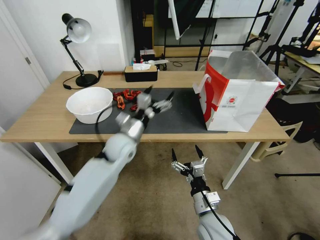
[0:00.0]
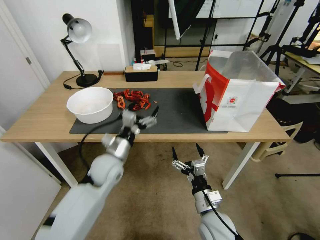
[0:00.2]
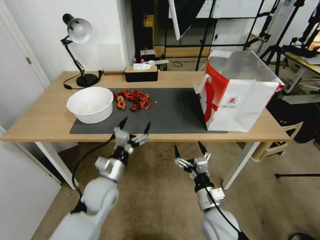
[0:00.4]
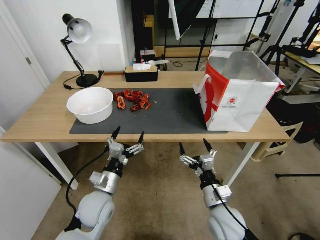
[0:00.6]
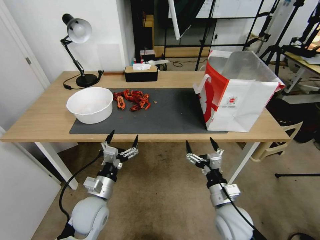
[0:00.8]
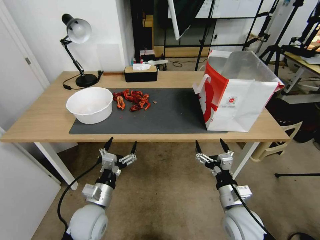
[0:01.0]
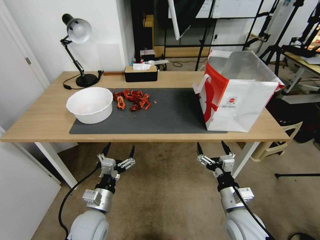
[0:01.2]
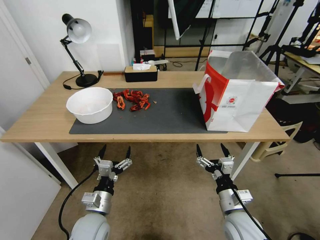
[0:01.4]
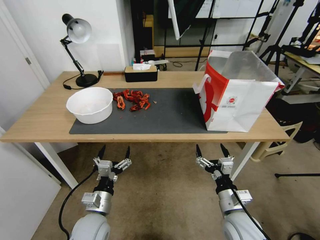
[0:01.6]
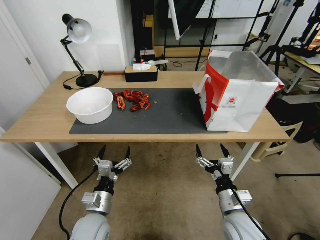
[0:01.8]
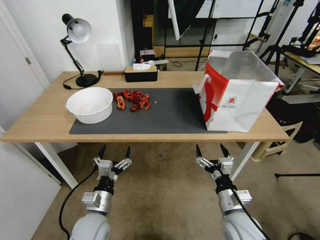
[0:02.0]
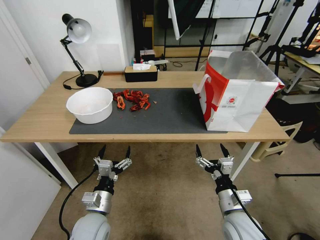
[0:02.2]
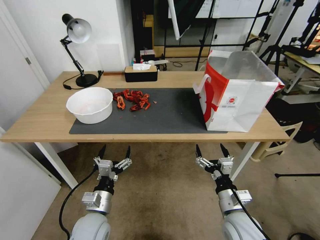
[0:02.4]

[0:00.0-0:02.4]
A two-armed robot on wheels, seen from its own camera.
Task of the whole recording: Close the takeout container lid, then place the container into the takeout bag.
0.0 to 1.2 s: The right gripper goes some 10 cm to the right. Meanwhile the left gripper shifts about 25 cm backward and downward.
1.2 to 2.4 s: The grippers move only a little.

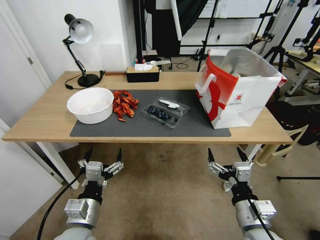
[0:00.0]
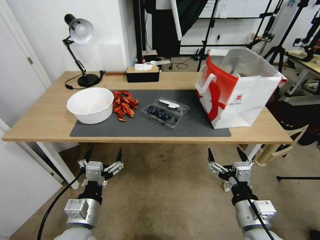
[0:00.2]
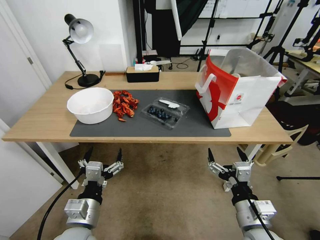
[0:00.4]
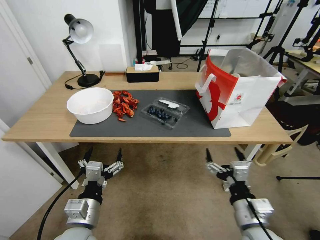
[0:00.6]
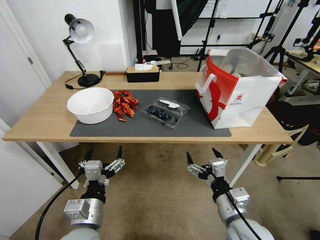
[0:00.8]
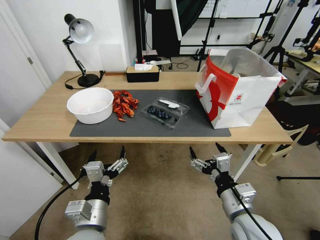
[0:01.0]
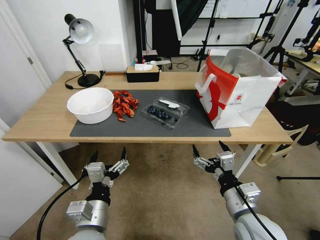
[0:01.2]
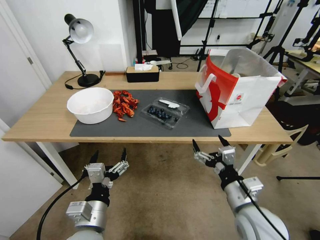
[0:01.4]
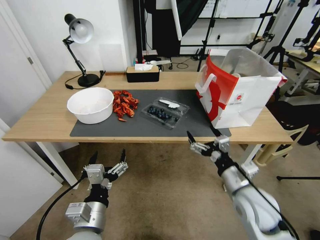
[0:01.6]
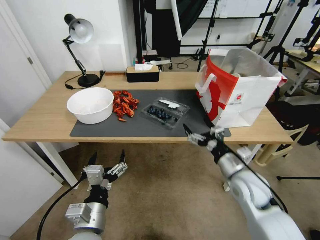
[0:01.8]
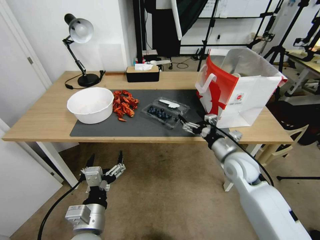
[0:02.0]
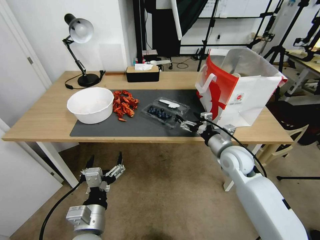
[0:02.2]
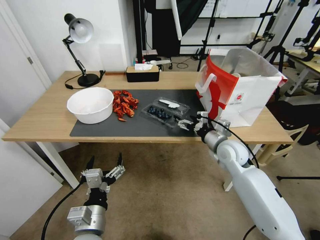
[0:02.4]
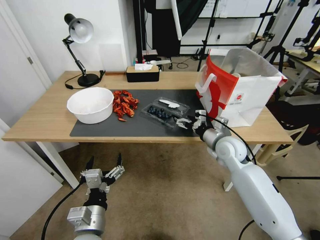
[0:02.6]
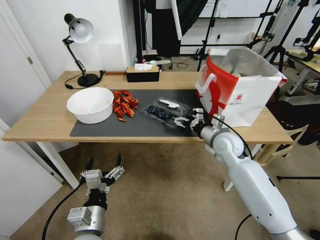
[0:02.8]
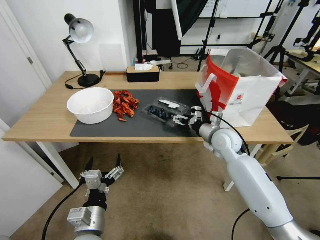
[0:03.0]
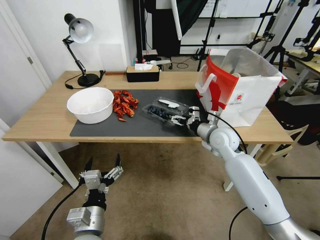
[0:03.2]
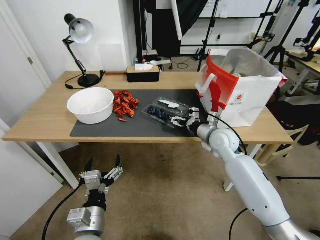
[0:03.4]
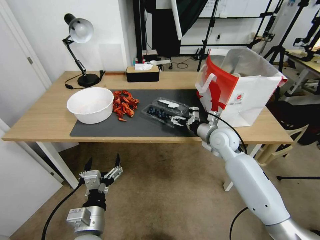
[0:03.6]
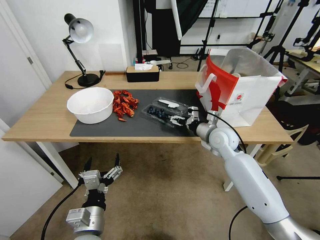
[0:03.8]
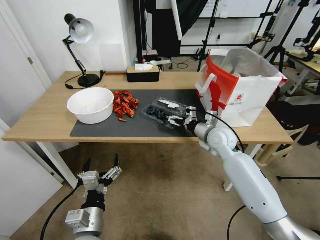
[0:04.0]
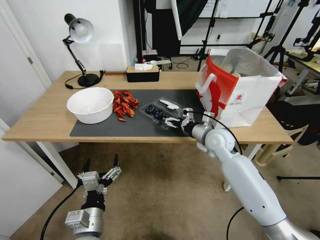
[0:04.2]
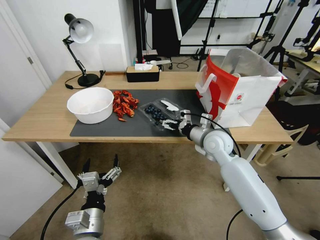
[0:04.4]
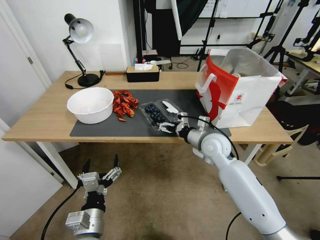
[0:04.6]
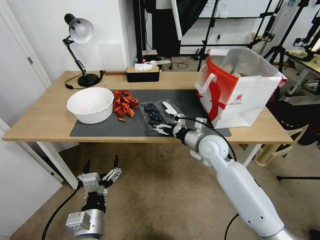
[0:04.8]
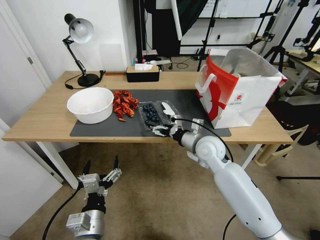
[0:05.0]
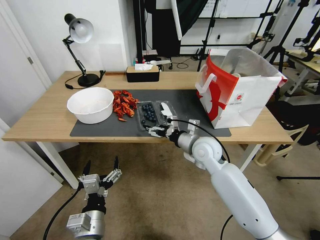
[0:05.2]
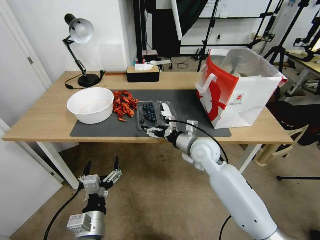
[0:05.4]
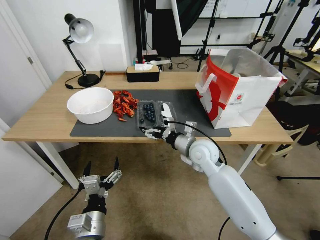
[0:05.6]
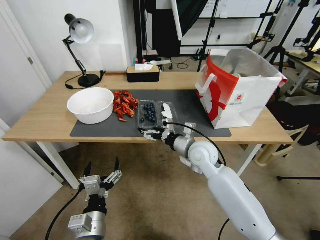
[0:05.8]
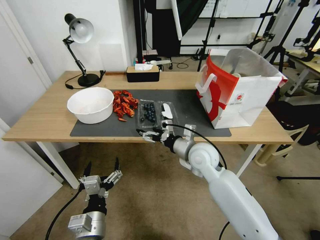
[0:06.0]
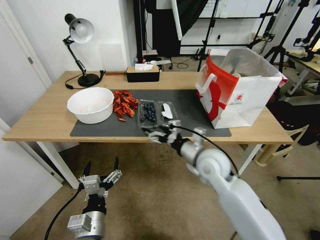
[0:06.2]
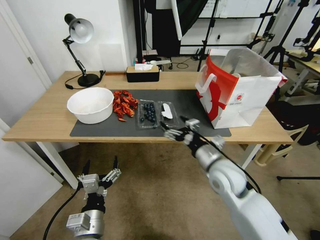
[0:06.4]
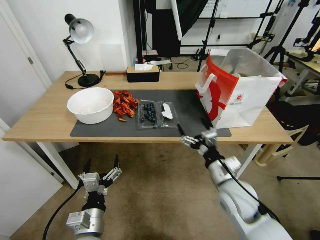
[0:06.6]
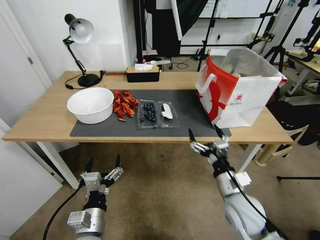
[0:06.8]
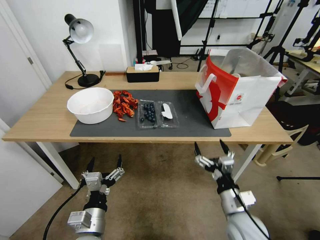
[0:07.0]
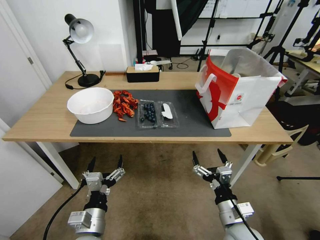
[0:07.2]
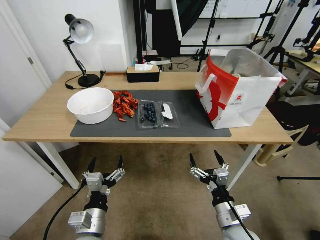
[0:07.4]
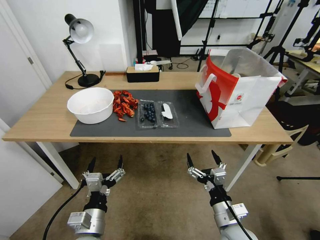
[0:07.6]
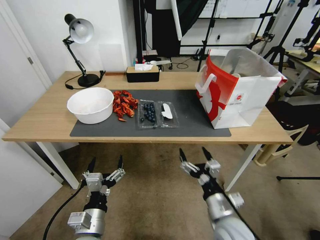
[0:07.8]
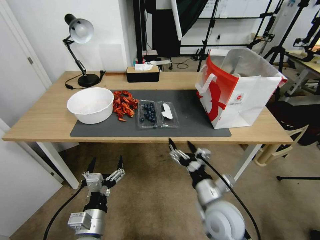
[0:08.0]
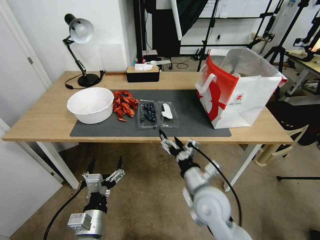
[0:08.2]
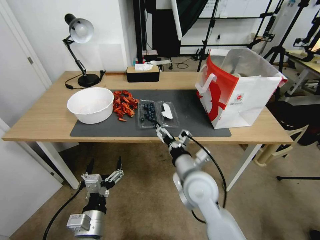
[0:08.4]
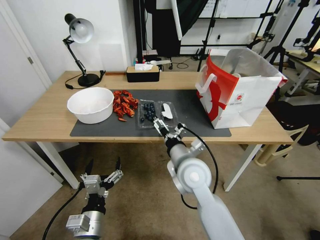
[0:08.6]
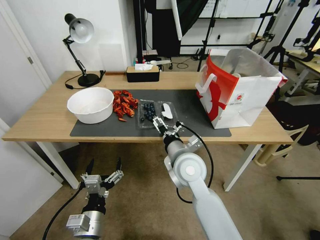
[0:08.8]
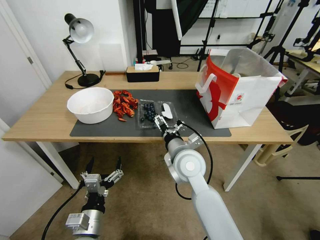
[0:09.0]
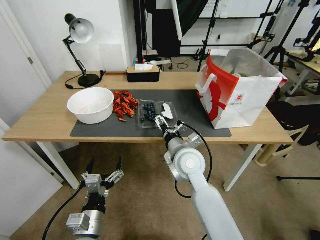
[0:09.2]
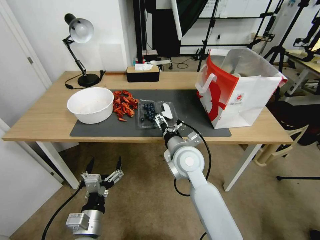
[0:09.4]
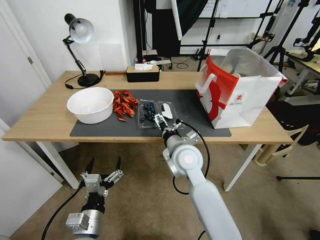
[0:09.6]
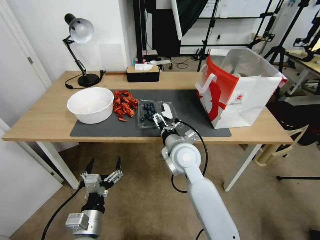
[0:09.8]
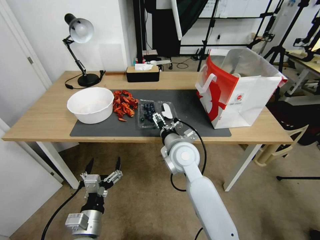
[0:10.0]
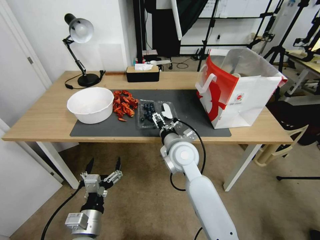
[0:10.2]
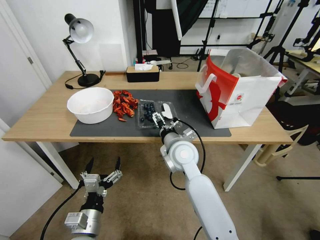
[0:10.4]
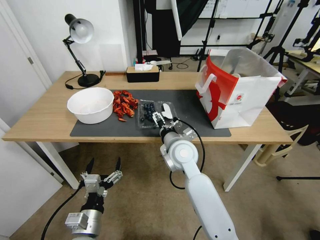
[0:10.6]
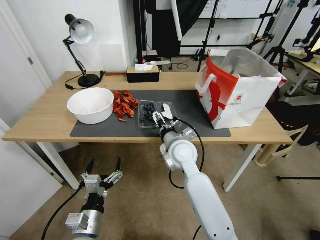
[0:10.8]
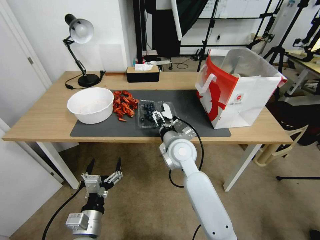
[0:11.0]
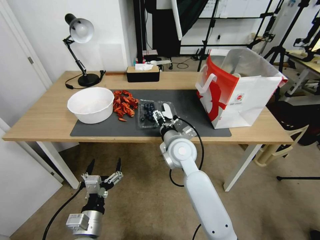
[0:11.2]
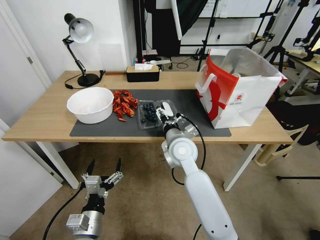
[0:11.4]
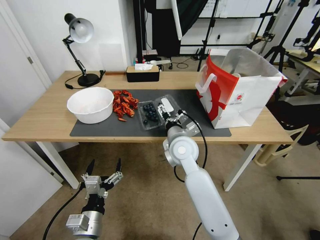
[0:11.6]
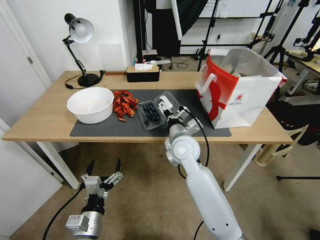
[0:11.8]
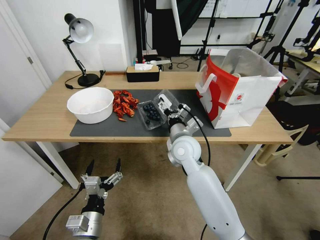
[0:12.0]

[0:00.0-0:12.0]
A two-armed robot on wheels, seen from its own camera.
Task of the whole recording: Close the takeout container lid, then place the container into the takeout bag.
1.6 to 3.0 s: The right gripper shifts roughly 20 cm forward.
3.0 to 4.4 s: The grippers make only small movements.
4.4 to 6.0 s: The right gripper is displaced to the left by about 5 cm.
6.0 to 7.6 s: The right gripper shifts roughly 25 cm backward and downward.
7.6 to 9.0 s: The right gripper is displaced forward, to the left and upward by roughly 25 cm.
9.0 to 10.4 s: There are only small adjustments of the grippers.

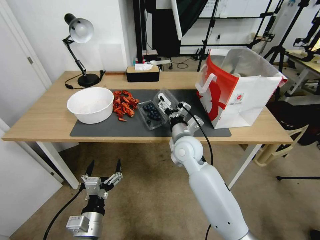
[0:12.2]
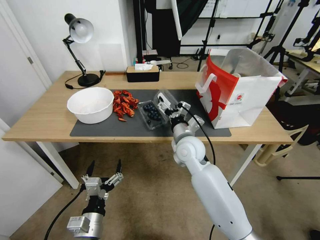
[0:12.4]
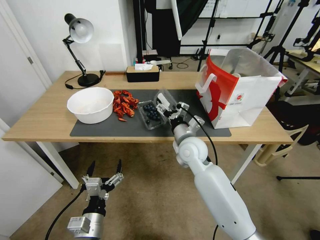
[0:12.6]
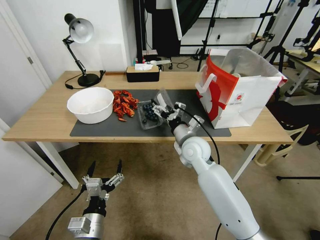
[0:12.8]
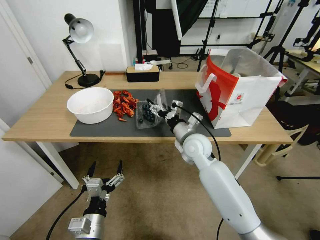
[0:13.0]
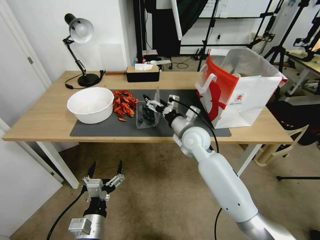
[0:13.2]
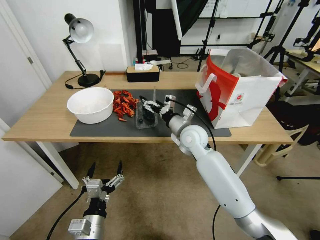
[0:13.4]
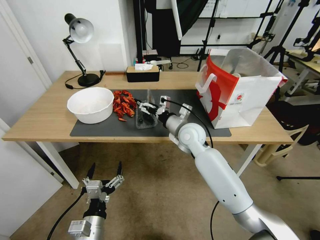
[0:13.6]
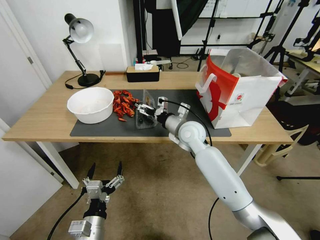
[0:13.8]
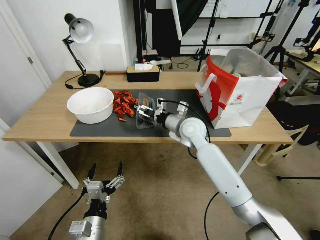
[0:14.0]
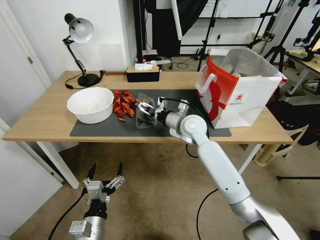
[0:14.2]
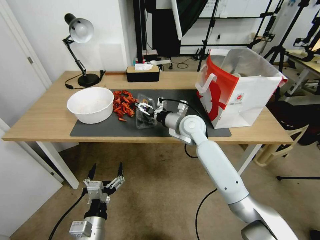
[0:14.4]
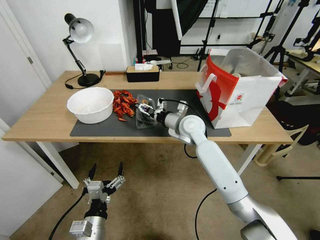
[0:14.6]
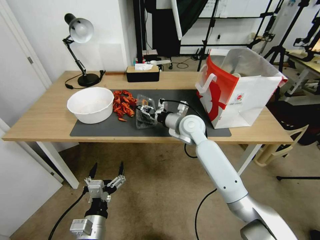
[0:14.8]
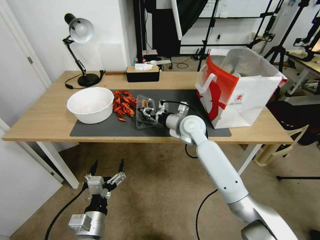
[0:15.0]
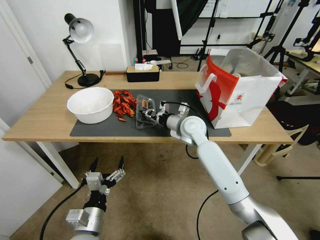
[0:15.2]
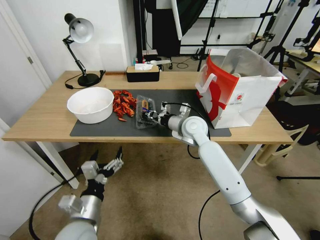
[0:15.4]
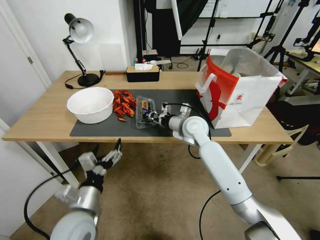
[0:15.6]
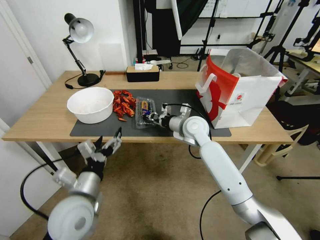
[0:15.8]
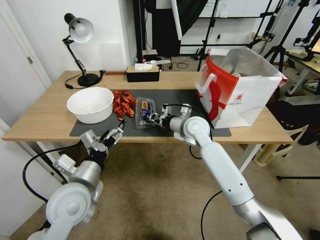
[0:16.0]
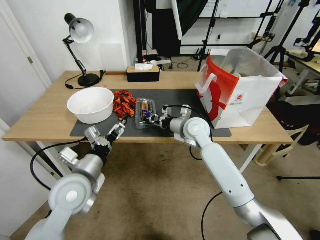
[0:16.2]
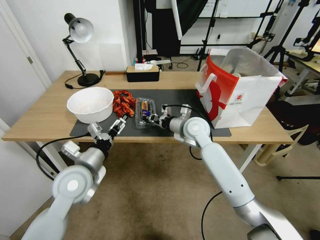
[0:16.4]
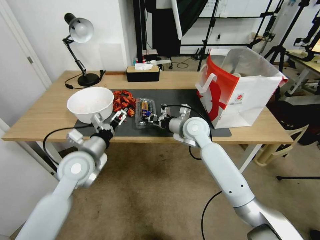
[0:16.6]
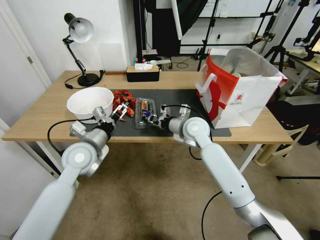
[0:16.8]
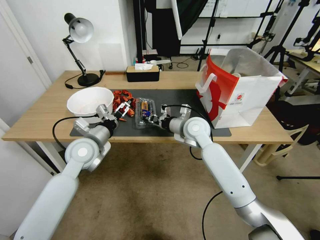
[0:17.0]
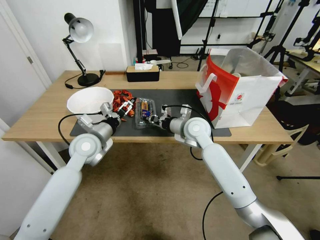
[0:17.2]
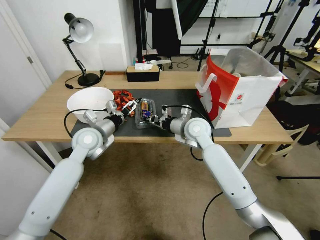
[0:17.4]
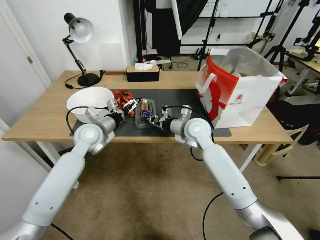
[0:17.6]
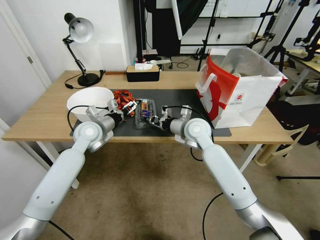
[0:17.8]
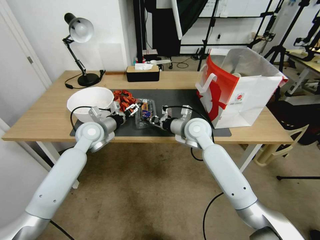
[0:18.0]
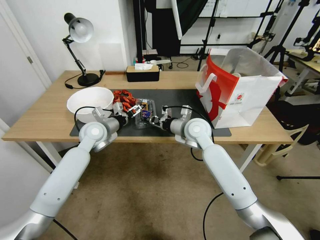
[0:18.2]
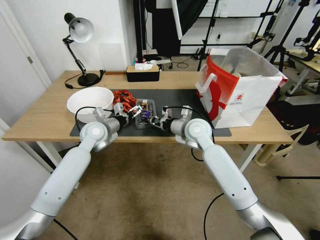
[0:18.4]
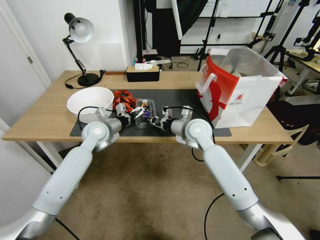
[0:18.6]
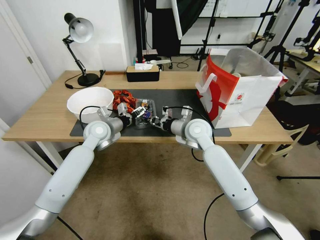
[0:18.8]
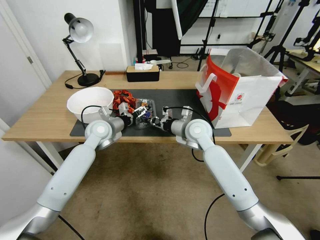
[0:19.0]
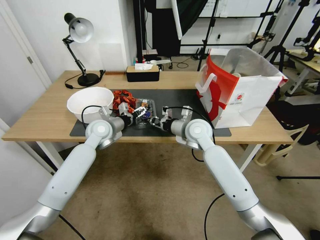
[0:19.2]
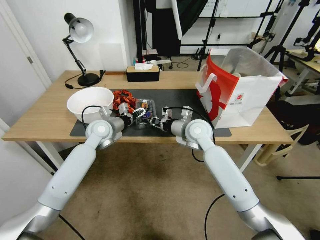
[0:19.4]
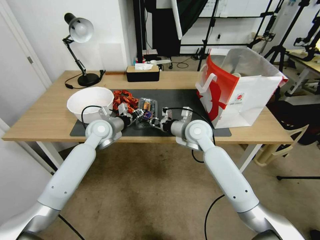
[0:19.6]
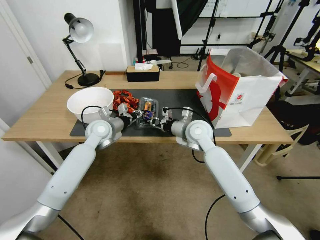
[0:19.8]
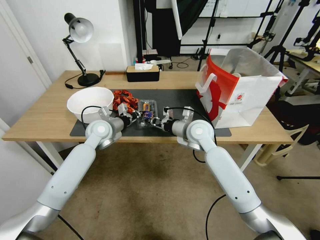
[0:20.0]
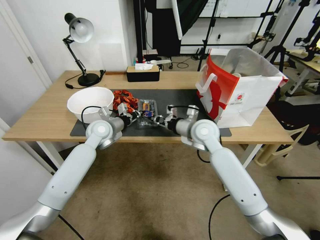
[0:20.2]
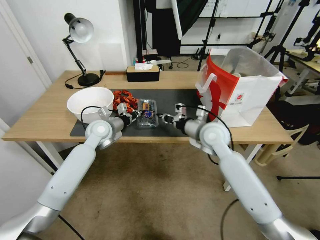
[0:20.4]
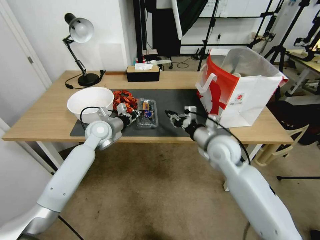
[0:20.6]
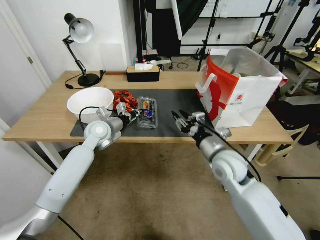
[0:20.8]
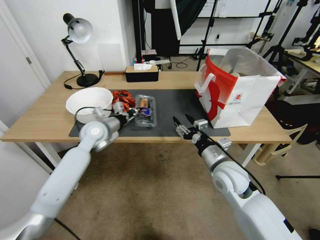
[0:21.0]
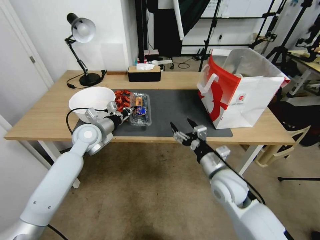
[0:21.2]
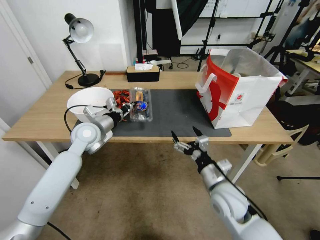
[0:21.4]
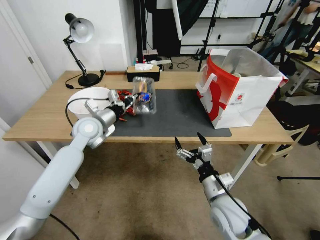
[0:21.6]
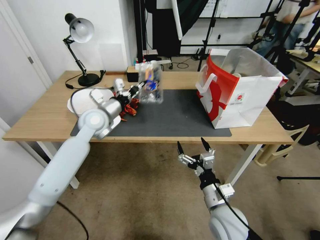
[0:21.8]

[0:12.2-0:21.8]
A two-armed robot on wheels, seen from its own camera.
Task of the whole recording: Close the takeout container lid, then place the container into the takeout bag.
12.2 to 13.8 s: The right gripper travels forward by approximately 5 cm.
13.8 to 15.4 s: The right gripper closes its fingers, while the left gripper ends up approximately 5 cm from where it was.
15.4 to 17.0 s: The left gripper goes some 25 cm forward and upward.
17.0 to 18.6 s: The left gripper goes approximately 10 cm forward.
18.6 to 20.2 s: The left gripper closes its fingers.
20.2 to 21.8 s: The left gripper heads upward, covering roughly 5 cm. The right gripper is displaced backward and downward by roughly 25 cm, and opens.
